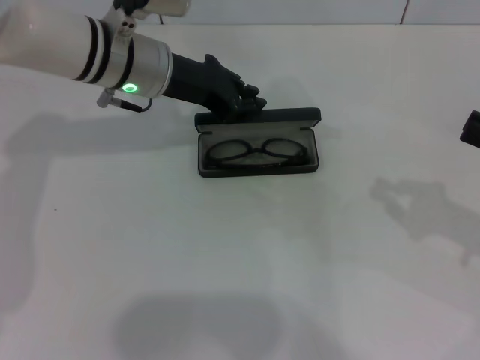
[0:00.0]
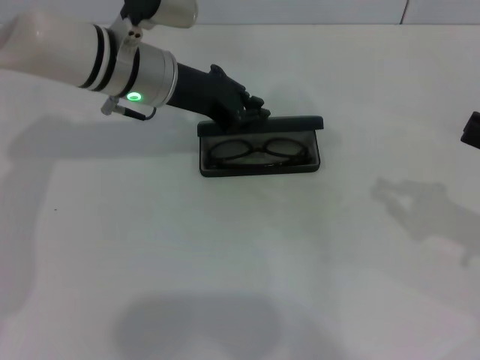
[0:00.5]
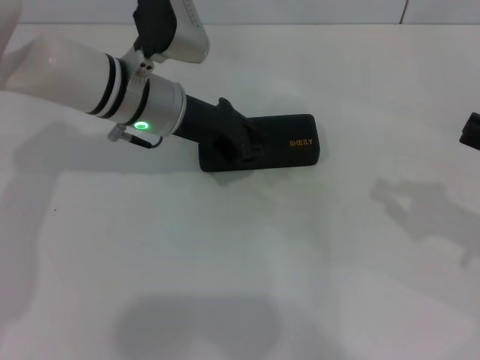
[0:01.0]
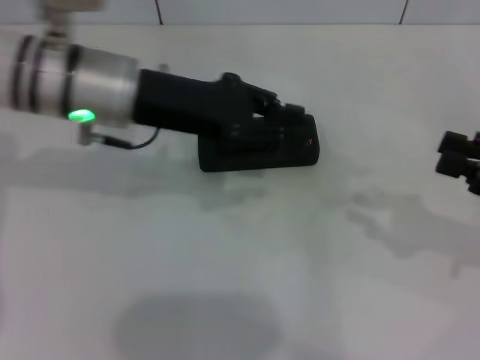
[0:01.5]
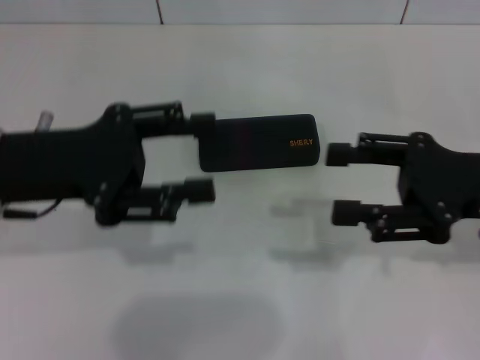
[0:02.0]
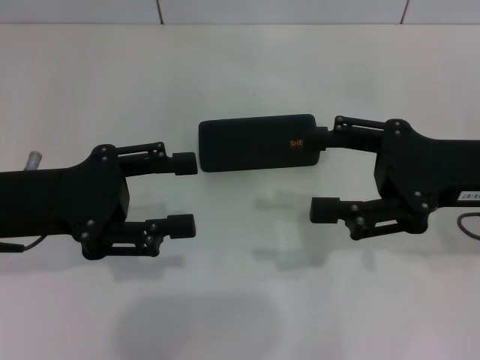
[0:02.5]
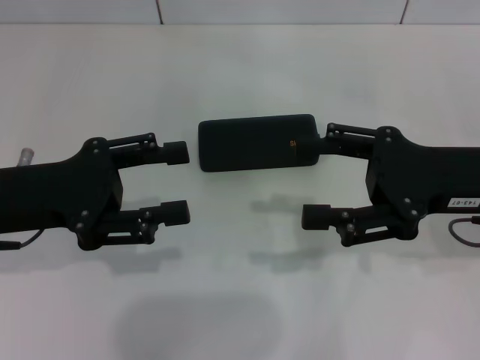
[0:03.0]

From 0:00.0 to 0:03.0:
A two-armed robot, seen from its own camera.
From 0:00.0 to 0:01.5: The left gripper moves backward, approximately 5 cm.
From 0:01.5 to 0:03.0: The left gripper is displaced to the left and backward by about 15 cm, and opens. The right gripper heads to the left, covering about 10 cm, and opens.
